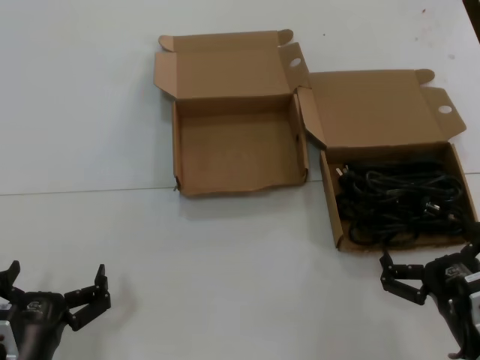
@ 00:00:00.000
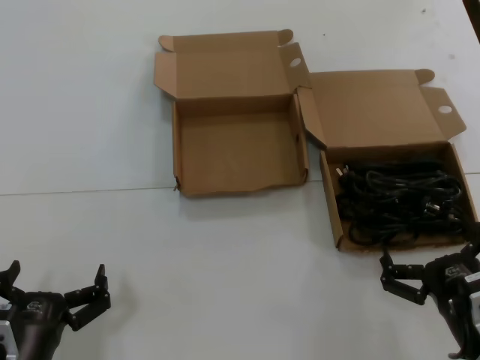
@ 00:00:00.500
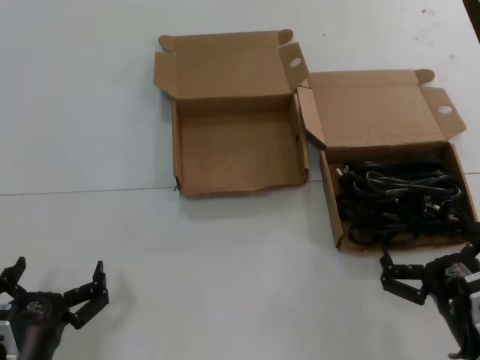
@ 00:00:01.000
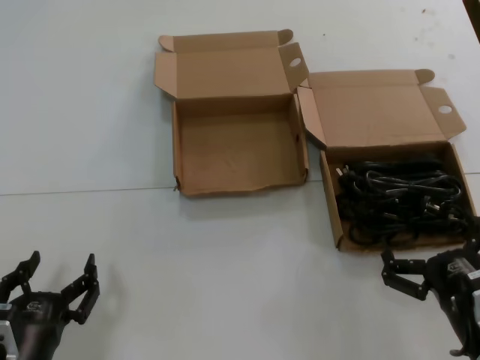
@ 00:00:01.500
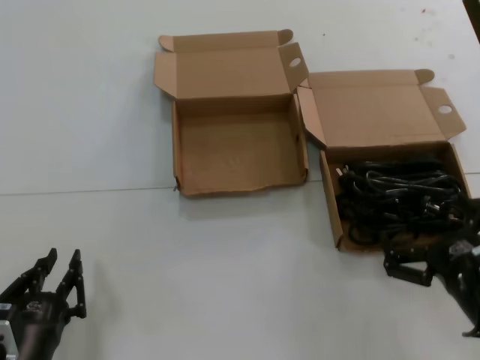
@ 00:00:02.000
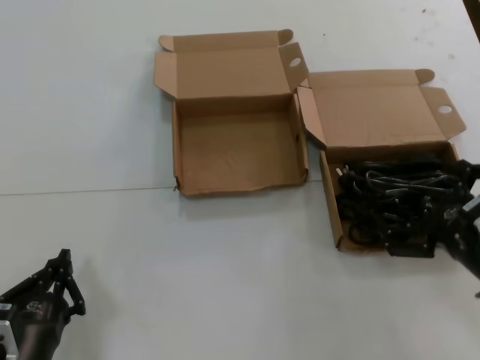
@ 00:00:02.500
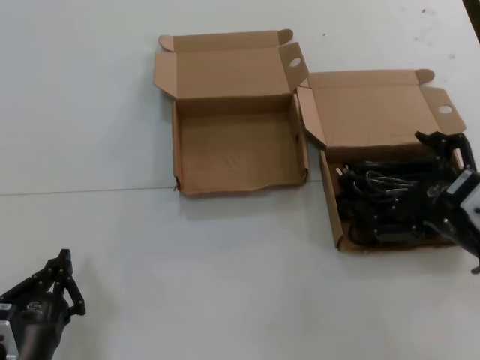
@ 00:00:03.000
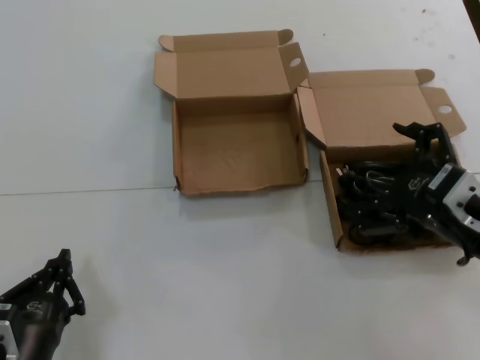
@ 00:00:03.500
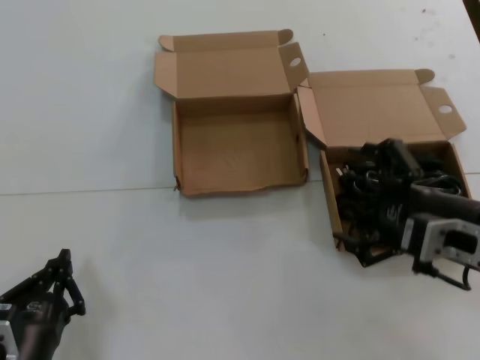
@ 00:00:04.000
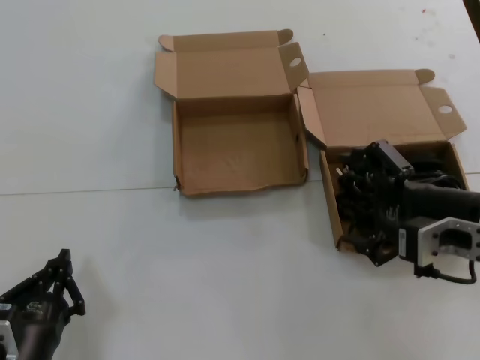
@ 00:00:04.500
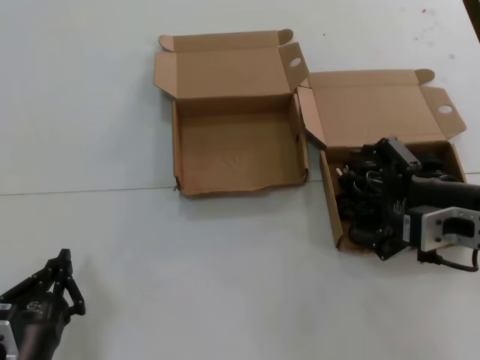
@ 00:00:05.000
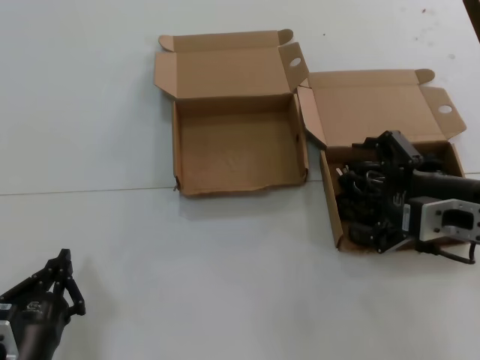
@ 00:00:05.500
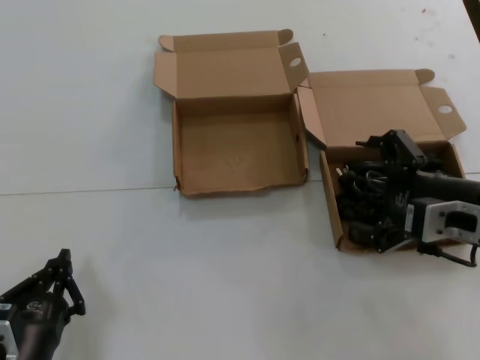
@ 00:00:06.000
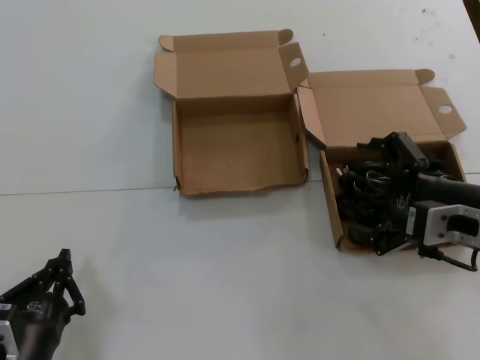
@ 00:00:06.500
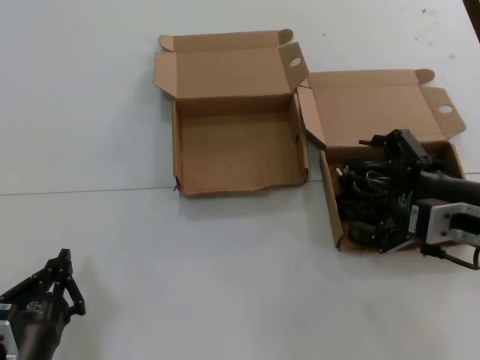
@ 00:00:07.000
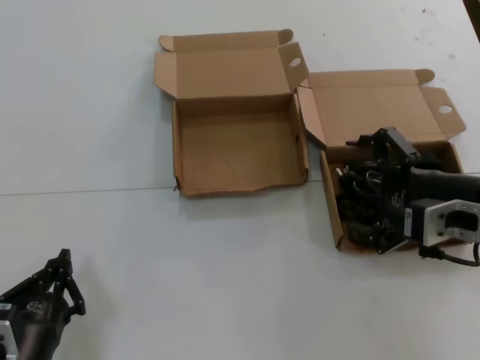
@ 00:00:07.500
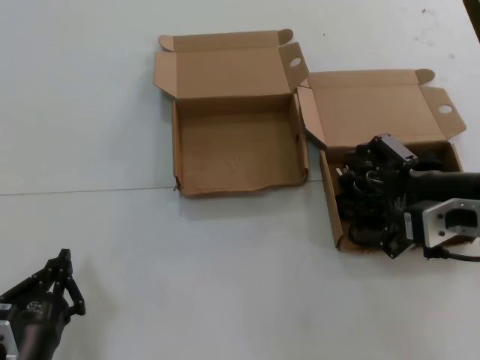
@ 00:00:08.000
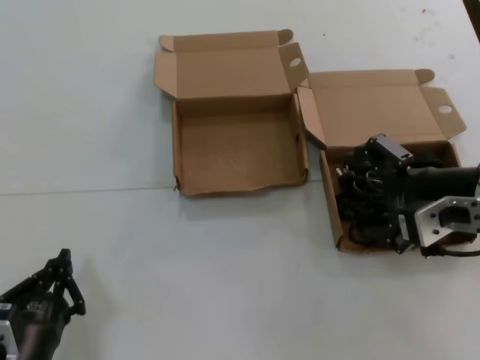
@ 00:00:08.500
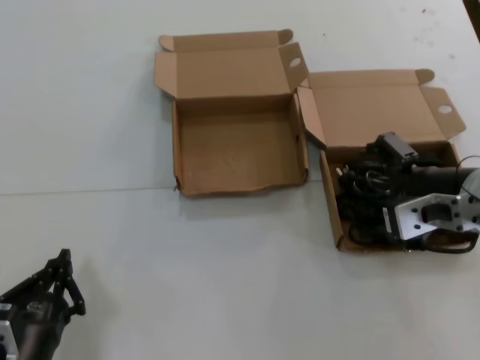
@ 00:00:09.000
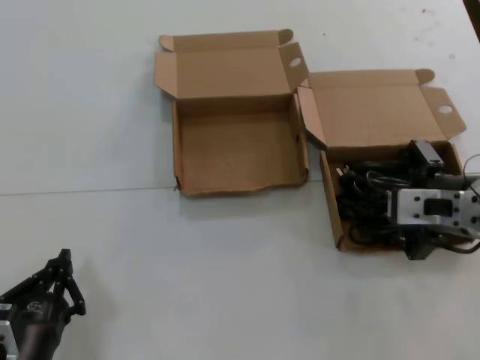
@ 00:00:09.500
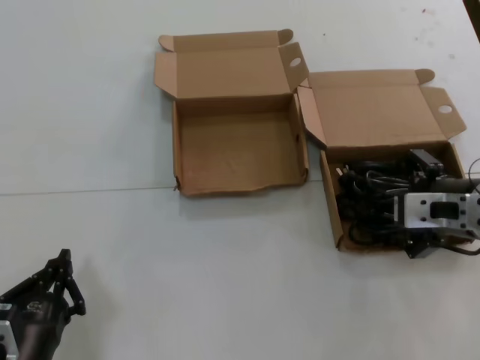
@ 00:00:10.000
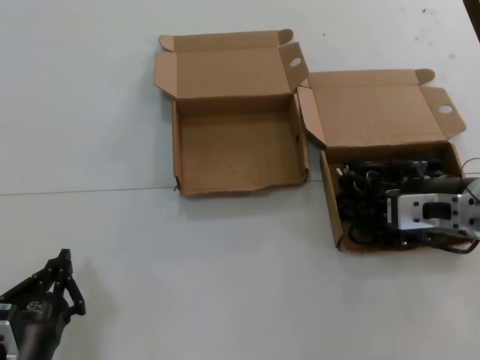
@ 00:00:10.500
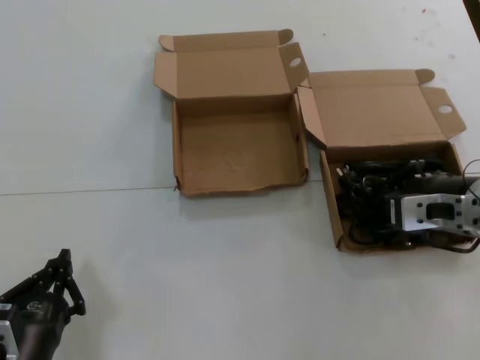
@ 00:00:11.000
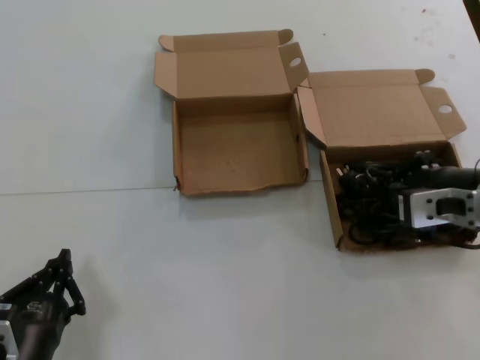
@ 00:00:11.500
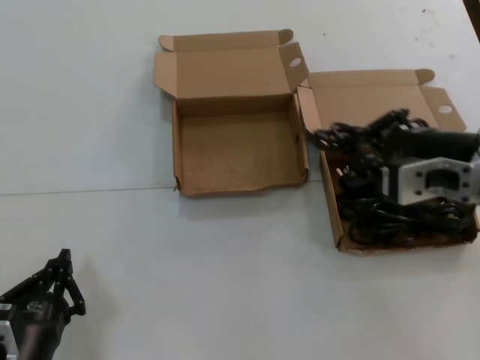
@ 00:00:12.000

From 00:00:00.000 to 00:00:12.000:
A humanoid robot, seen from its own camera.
Task of the whole recording: take the parts from the box containing them and put them into an empty box.
Step, from 00:00:00.000 to 00:00:10.500: Grasp the data cable.
From 00:00:00.000 to 00:00:02.000: There are only small adjustments of the hands.
From 00:00:02.000 to 00:00:04.000: The right hand moves upward and forward, approximately 15 cm.
From 00:00:04.000 to 00:00:06.000: The hands stay close to where they were, moving slightly.
From 00:00:06.000 to 00:00:08.000: The hands stay close to where they were, moving slightly.
From 00:00:10.000 to 00:00:12.000: The right hand changes place by some 5 cm.

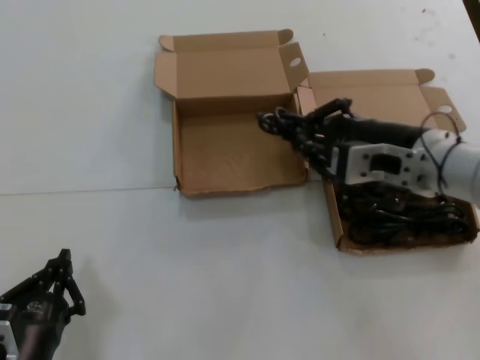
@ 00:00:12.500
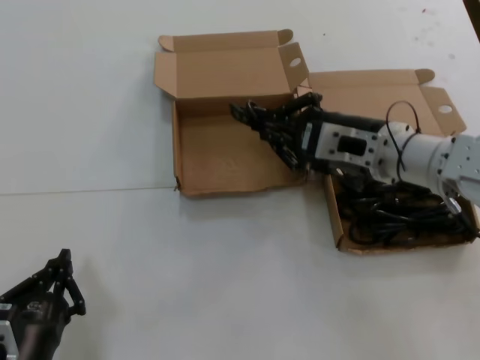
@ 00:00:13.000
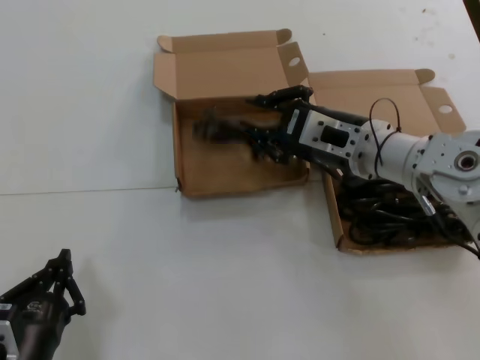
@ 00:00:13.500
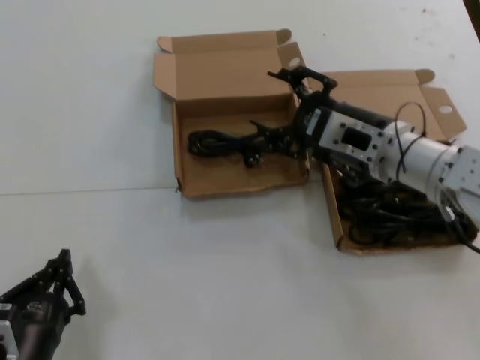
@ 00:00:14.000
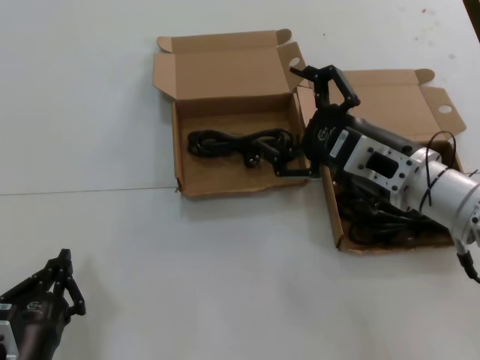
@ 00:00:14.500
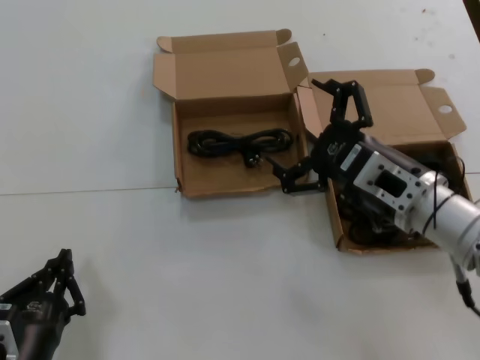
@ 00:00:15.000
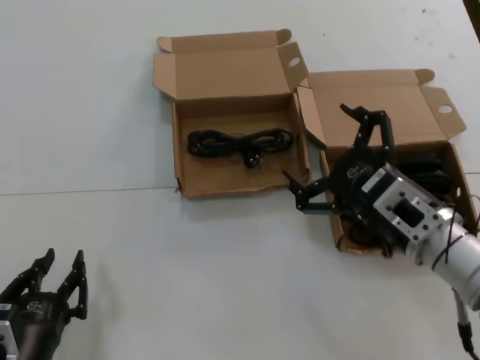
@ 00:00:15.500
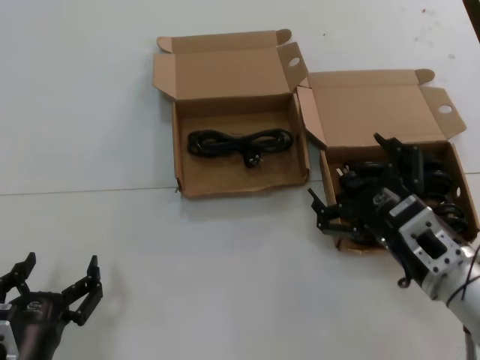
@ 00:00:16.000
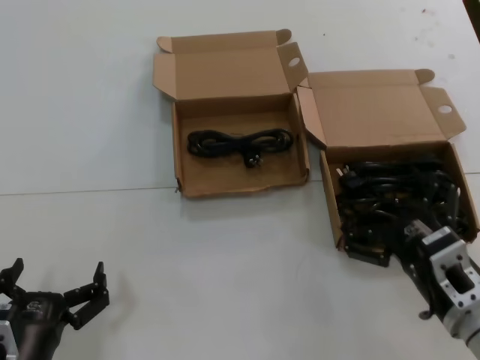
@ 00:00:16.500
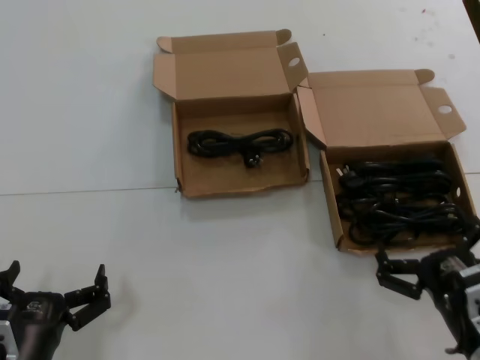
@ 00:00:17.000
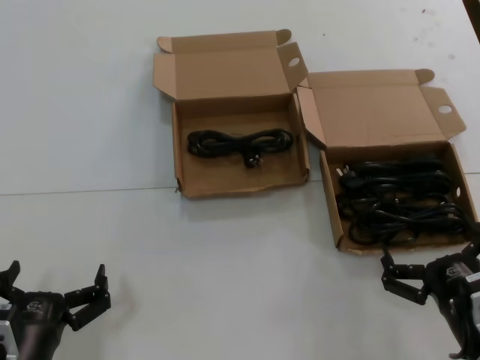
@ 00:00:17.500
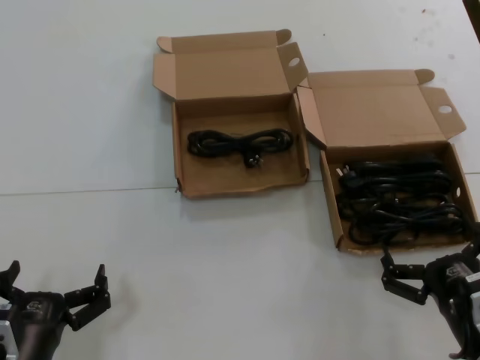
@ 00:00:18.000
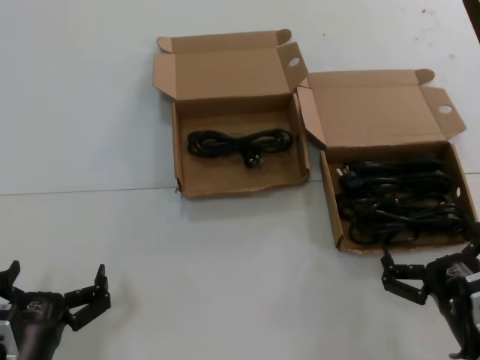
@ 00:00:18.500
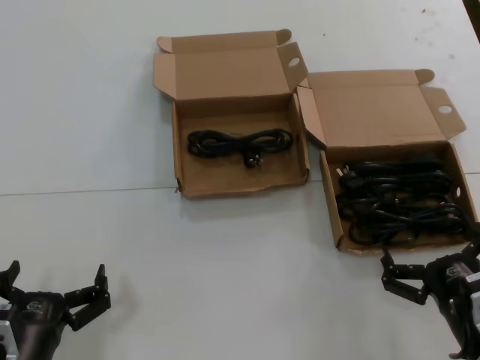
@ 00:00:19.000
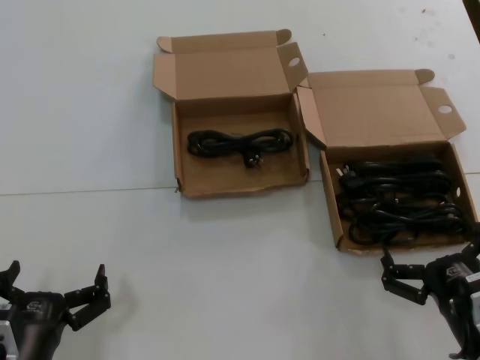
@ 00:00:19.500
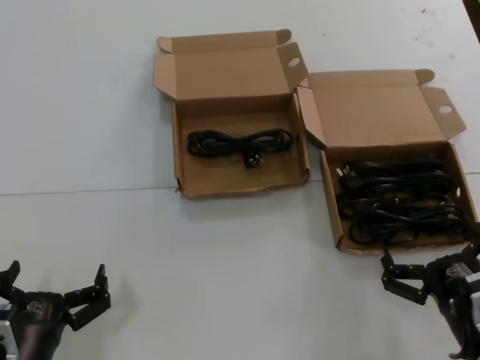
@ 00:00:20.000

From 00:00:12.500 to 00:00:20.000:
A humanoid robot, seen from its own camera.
Task of the whole recording: take the parts from the box containing them and put them into an empty box.
From 00:00:14.500 to 00:00:16.500: The right hand shifts about 15 cm downward and backward.
From 00:00:16.500 to 00:00:18.000: The right hand ends up about 5 cm from where it was.
From 00:00:18.000 to 00:00:20.000: Both hands stay put.
